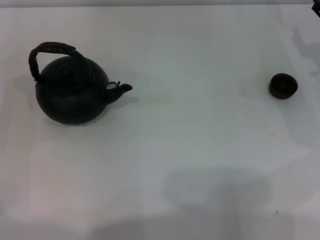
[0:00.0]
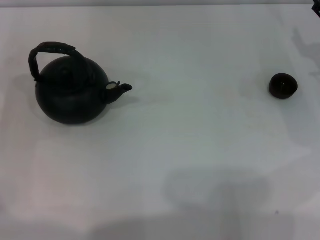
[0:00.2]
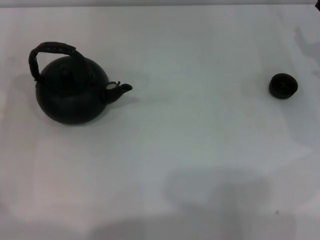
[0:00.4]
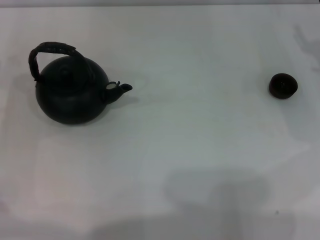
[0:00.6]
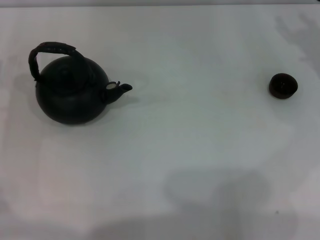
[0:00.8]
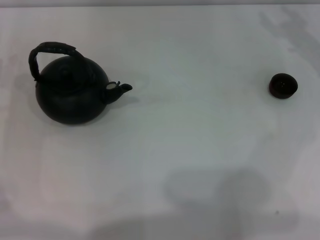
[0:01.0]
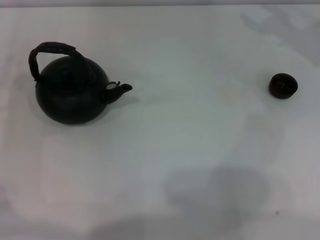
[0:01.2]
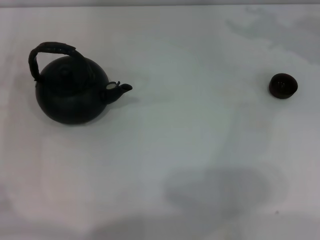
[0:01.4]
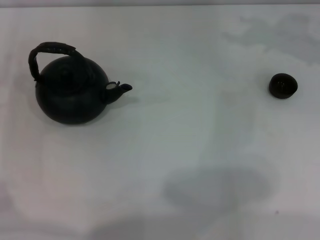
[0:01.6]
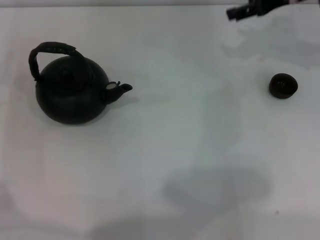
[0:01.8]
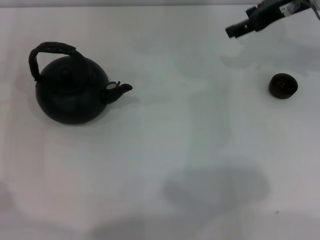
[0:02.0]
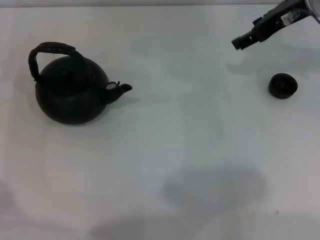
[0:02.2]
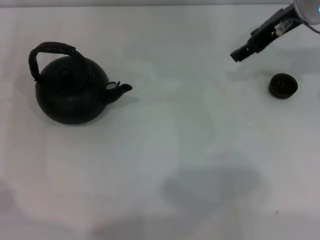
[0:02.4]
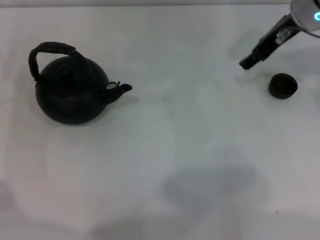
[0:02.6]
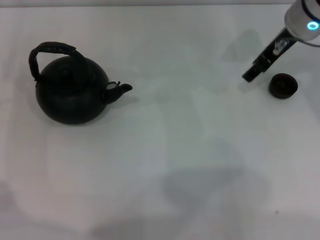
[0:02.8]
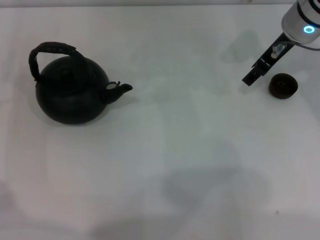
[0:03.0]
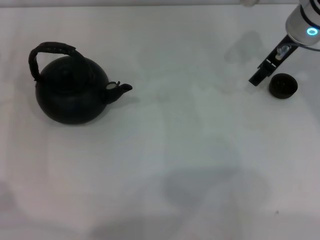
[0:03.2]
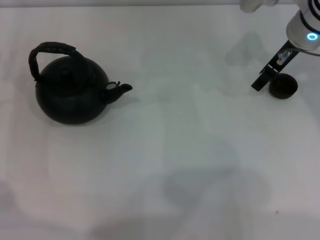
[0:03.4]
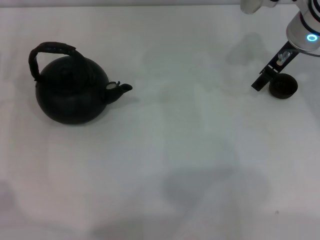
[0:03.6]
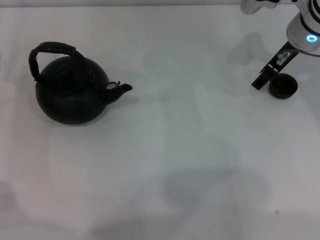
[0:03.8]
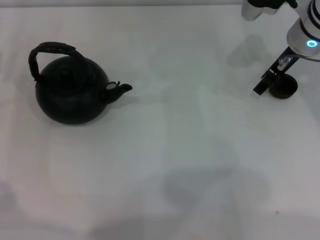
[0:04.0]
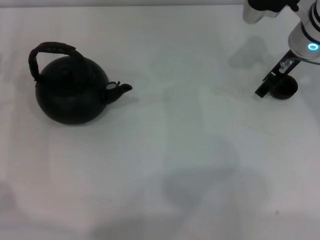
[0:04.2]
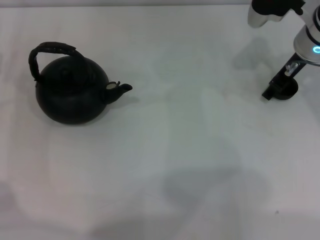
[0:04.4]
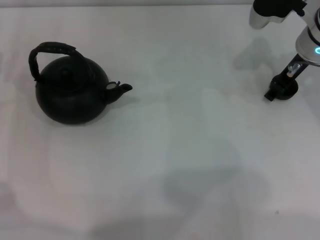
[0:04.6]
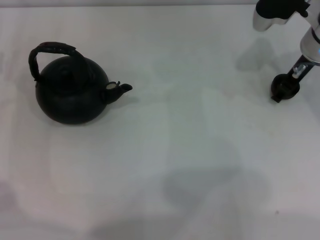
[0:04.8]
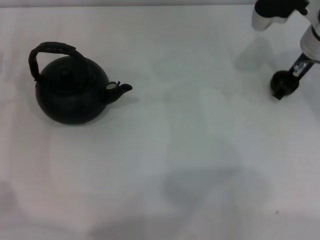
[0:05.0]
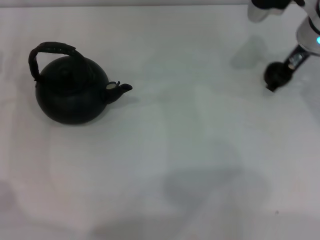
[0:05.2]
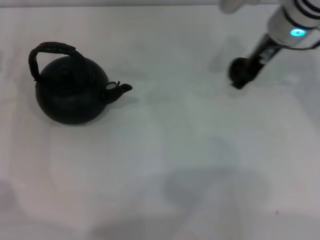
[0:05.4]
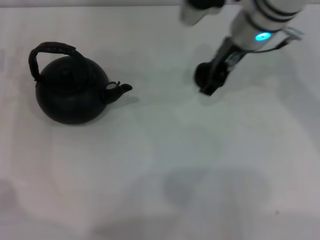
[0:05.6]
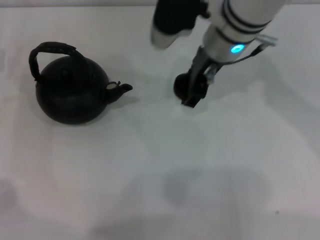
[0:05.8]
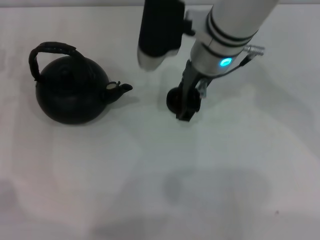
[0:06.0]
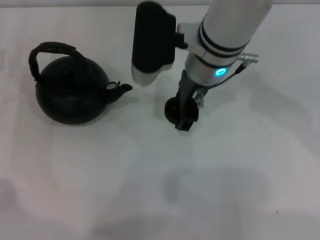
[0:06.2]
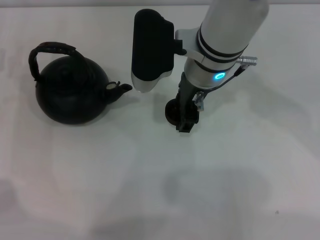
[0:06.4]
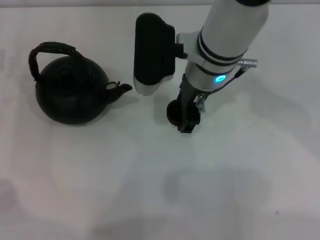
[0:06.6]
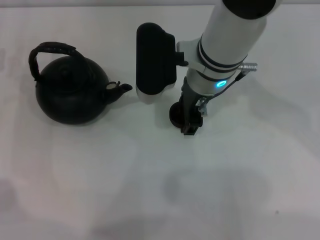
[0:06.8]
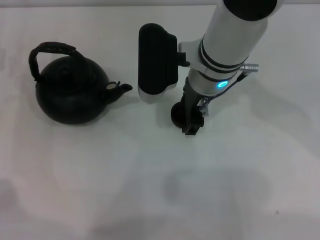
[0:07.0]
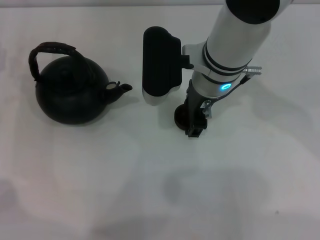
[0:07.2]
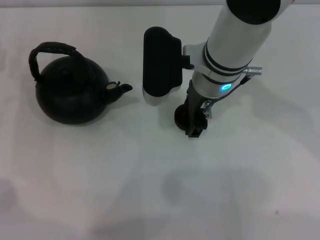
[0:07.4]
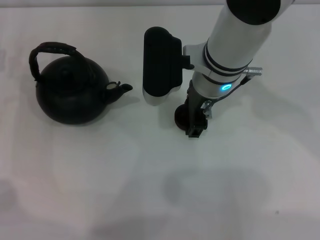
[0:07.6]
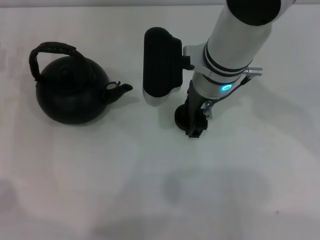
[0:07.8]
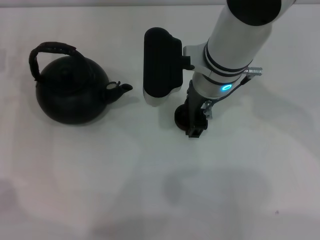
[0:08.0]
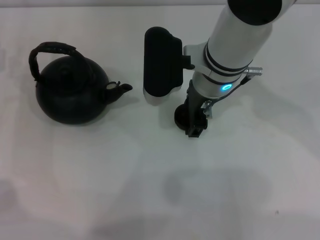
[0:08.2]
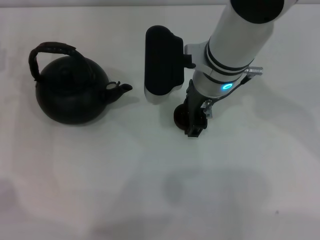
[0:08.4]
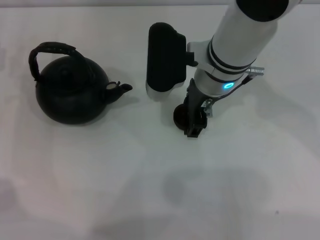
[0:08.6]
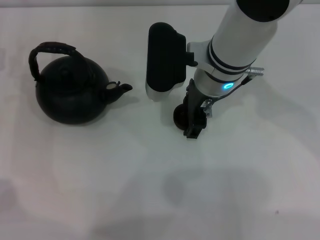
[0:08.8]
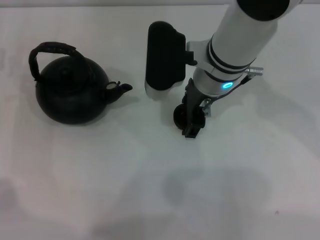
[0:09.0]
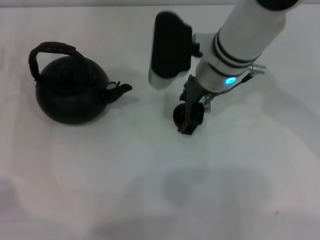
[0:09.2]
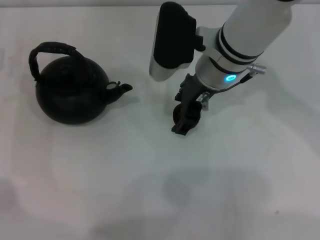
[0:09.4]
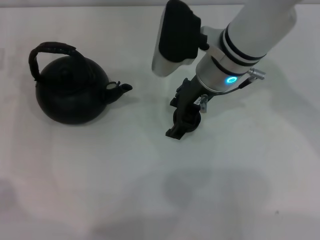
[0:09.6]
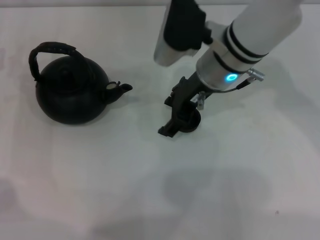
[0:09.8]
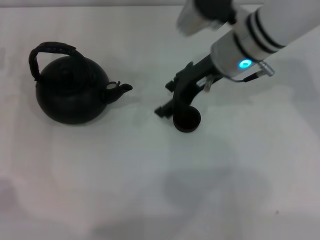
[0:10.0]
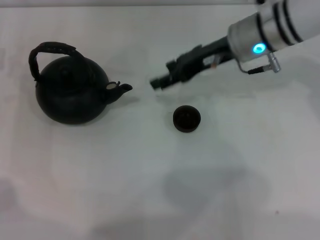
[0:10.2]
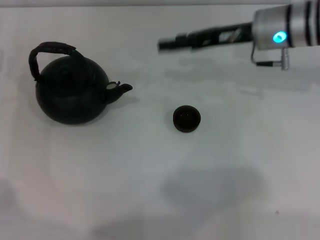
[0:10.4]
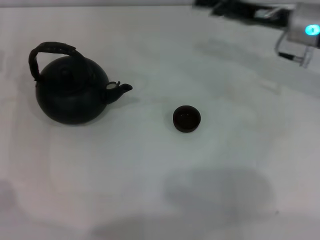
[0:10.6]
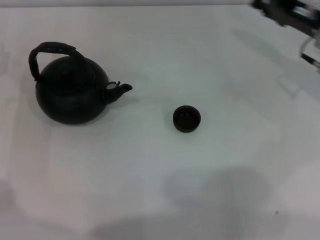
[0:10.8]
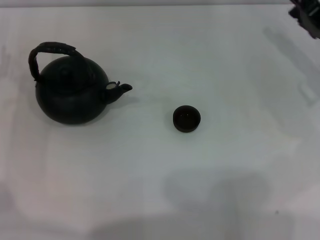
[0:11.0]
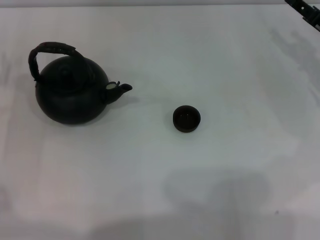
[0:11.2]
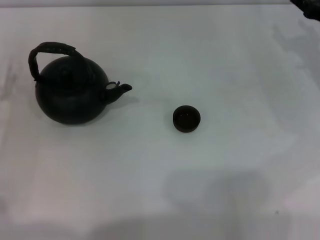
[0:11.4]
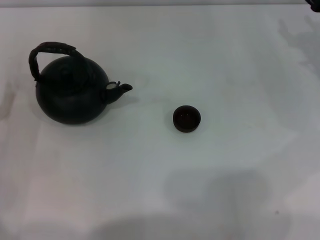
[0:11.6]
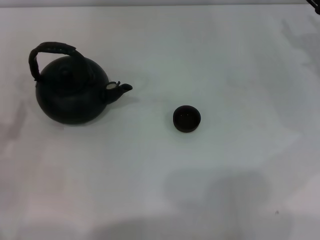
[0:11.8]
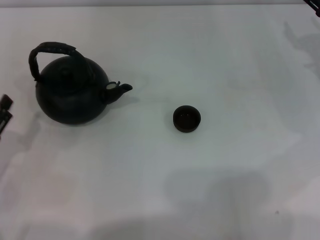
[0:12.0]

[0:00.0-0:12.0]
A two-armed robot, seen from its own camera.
Task of the whole recording: Grasp the handle of the teapot with one hand and pour tea into the teacup.
Step, 0:00.0 to 0:05.0: Pick up the teacup with the right gripper.
Step, 0:05.2 to 0:10.0: Place the teacup in the center of view with the right gripper.
0:01.6 to 0:03.0: The right gripper shifts about 5 cm to the left.
0:03.0 to 0:04.4: The grippers make only small movements.
0:04.4 to 0:06.0: The right gripper is displaced to the left by roughly 15 cm, and closes up.
0:06.0 to 0:07.6: The grippers make only small movements.
0:07.6 to 0:09.0: The right gripper opens its fingers.
0:09.0 to 0:10.4: The right gripper heads to the right, covering roughly 10 cm.
0:10.4 to 0:12.0: The right gripper moves to the right, approximately 15 cm, while the left gripper goes approximately 15 cm backward.

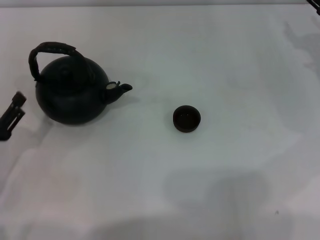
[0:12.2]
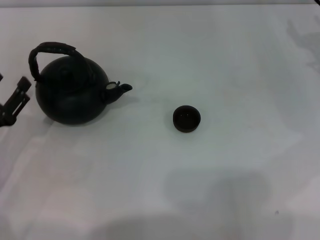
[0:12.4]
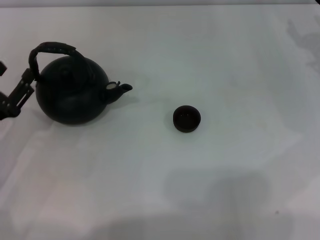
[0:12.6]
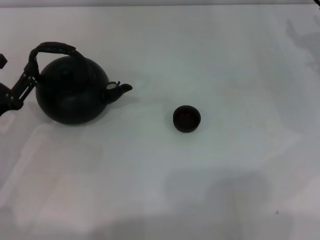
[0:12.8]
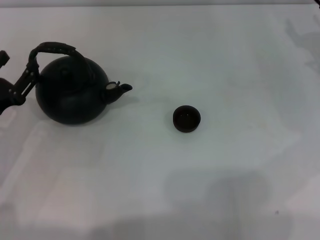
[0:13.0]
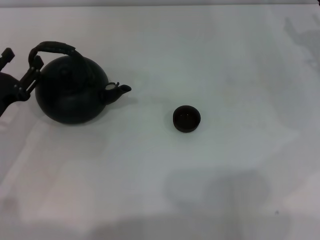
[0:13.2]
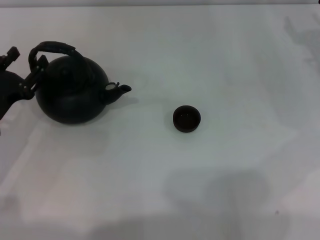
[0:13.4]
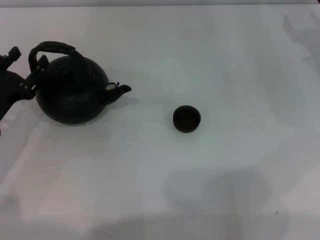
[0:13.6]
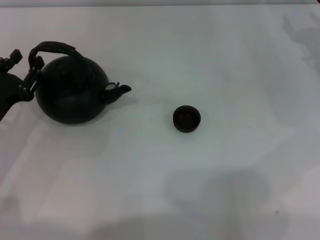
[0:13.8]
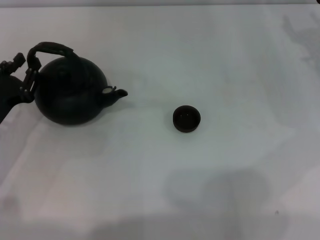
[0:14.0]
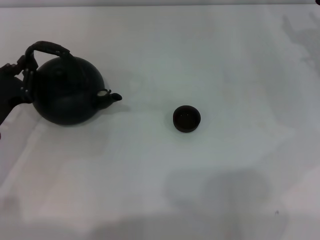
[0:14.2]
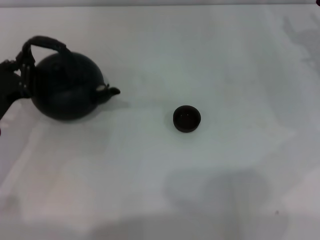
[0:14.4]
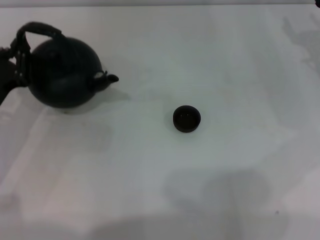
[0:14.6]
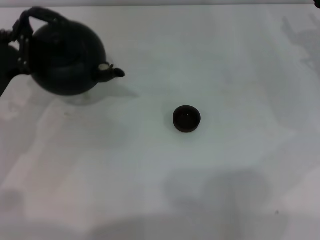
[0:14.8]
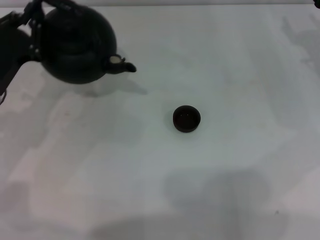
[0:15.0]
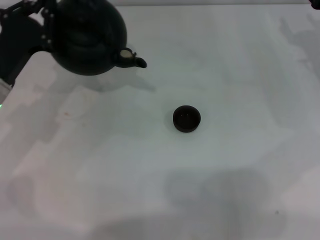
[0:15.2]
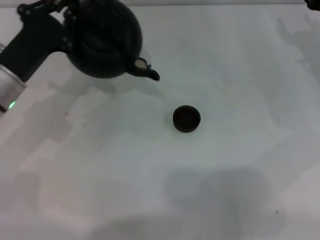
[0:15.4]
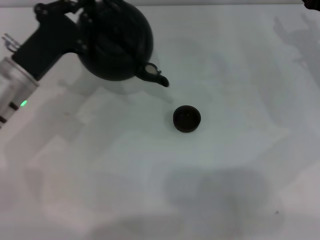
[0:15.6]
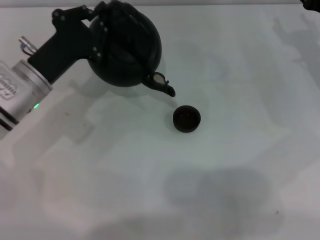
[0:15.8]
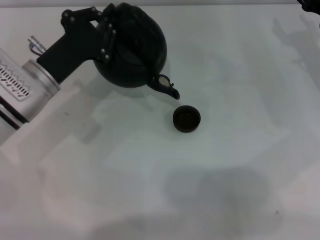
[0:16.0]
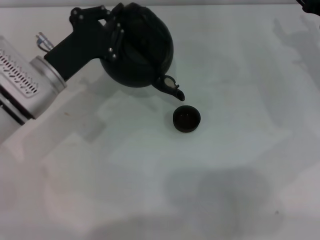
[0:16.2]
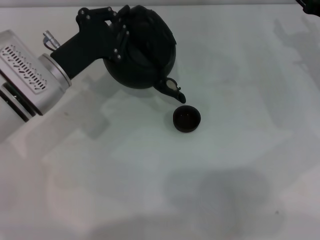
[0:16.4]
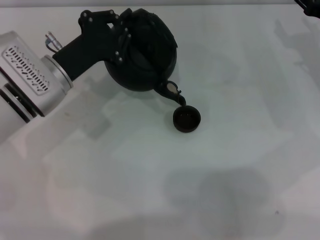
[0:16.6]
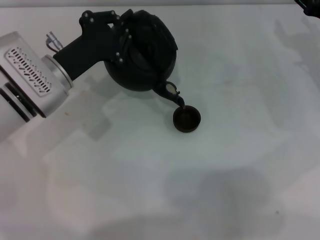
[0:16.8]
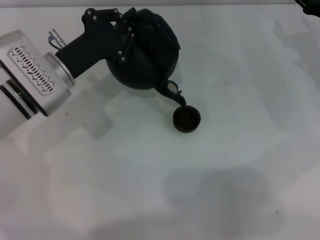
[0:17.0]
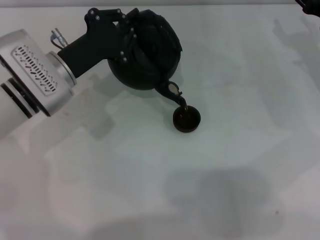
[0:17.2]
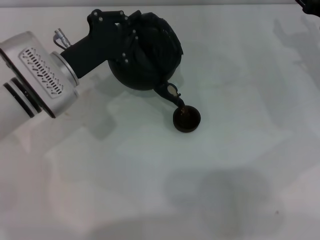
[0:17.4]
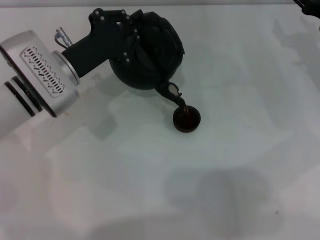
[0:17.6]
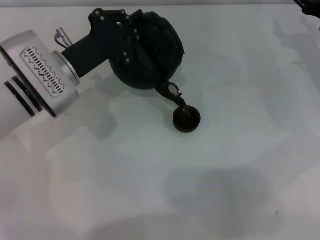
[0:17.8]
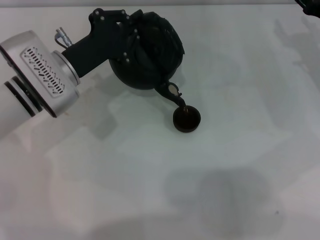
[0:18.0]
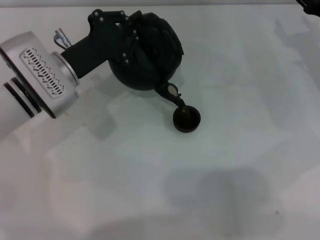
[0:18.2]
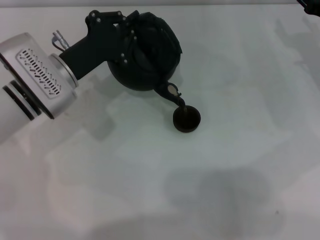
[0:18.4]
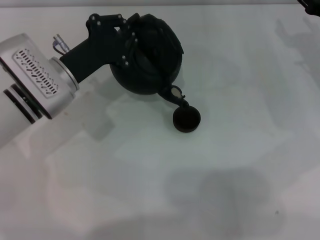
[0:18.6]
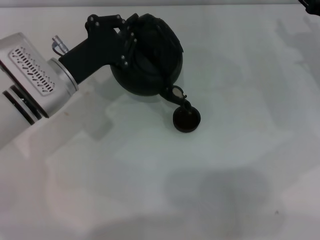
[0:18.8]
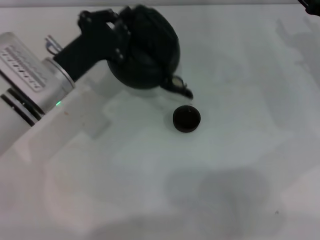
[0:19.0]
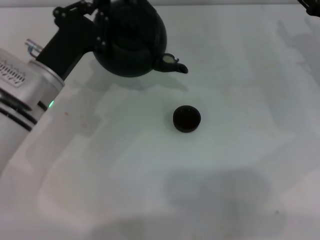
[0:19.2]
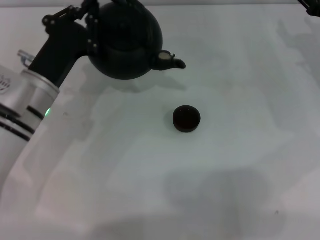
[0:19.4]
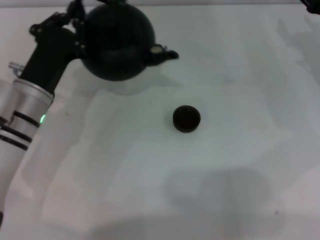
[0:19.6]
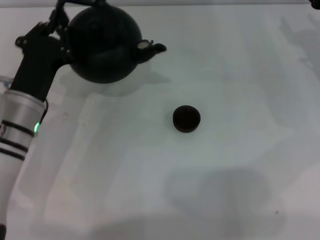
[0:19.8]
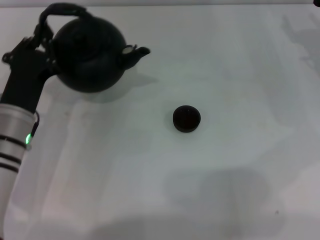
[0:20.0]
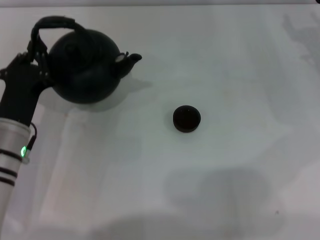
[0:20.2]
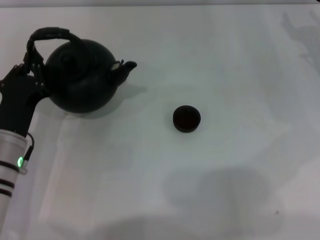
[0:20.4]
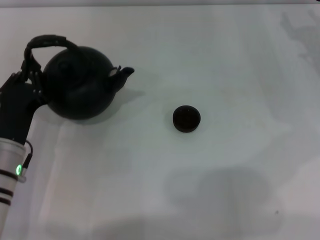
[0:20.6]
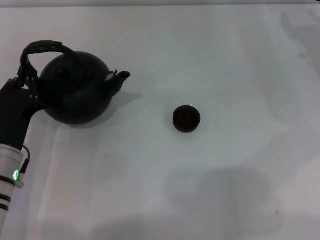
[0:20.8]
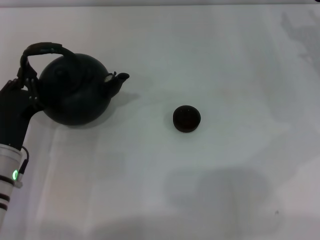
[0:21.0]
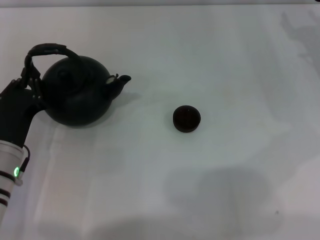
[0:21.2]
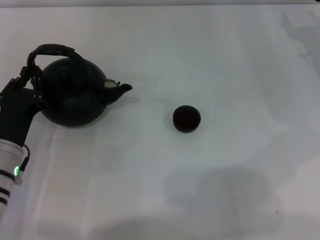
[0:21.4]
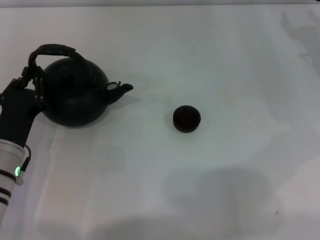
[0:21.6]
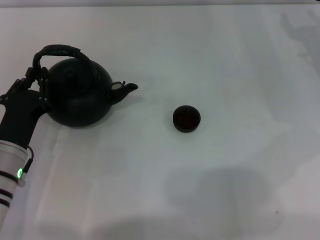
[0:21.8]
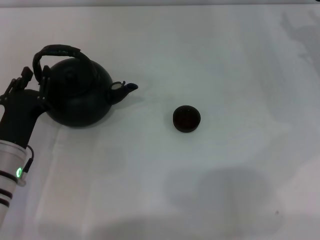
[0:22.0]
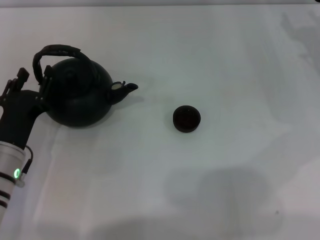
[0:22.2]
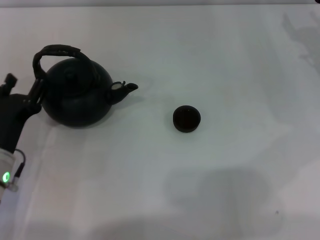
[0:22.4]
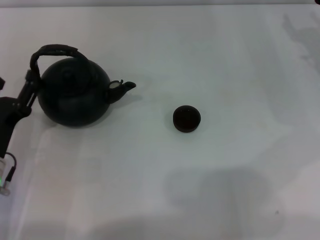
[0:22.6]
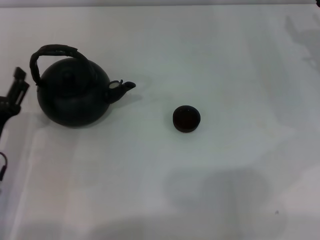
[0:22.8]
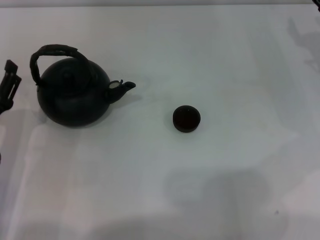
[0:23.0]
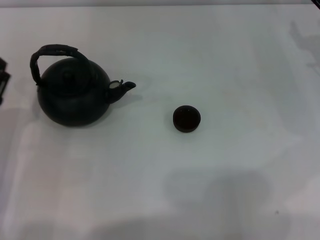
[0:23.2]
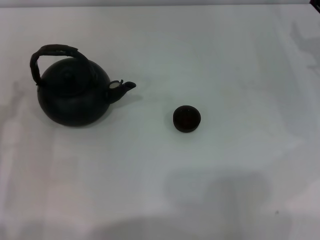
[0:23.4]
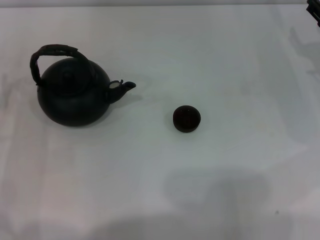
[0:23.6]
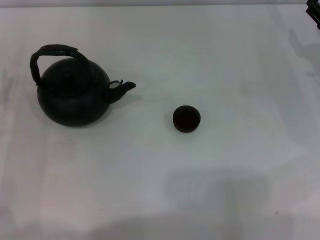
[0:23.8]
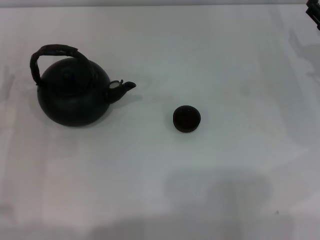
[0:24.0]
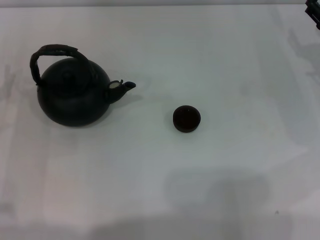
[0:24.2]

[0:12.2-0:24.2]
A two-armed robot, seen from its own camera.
Task of the whole recording: Grasp the handle of the teapot with one hand and pour tea into the teacup.
Step, 0:12.2 to 0:14.6: Pick up the teapot with the left gripper.
Step, 0:14.8 to 0:19.0: Pour tea into the teacup with the left gripper.
Step, 0:19.2 to 0:22.6: Put down the teapot with the left gripper.
0:12.2 to 0:13.8: The left gripper goes roughly 5 cm forward.
0:13.8 to 0:15.2: The left gripper shifts by about 10 cm, and closes its fingers.
0:15.2 to 0:16.6: The left gripper heads to the right, covering approximately 5 cm.
0:16.6 to 0:18.2: There are only small adjustments of the grippers.
0:18.2 to 0:19.8: The left gripper travels backward by about 5 cm.
0:19.8 to 0:21.2: The left gripper travels backward by approximately 5 cm.
0:21.2 to 0:22.6: The left gripper opens.
0:22.6 to 0:24.2: The left gripper is displaced to the left by approximately 5 cm.
